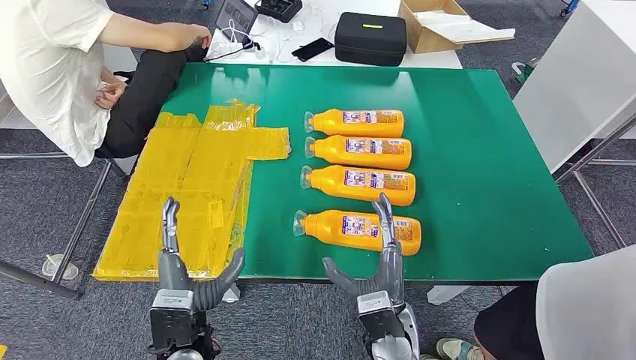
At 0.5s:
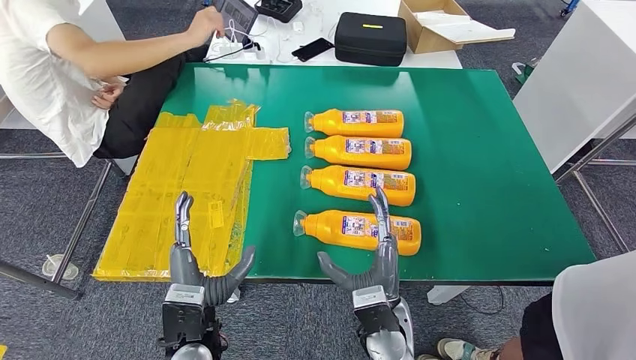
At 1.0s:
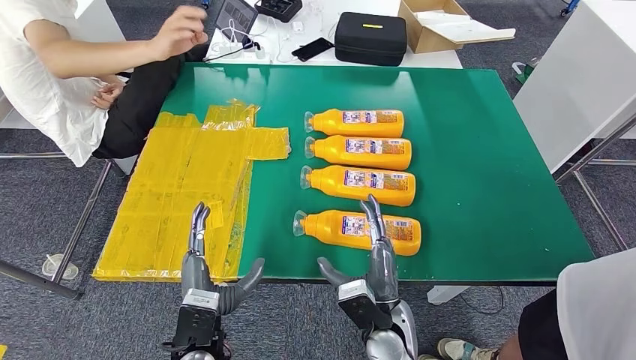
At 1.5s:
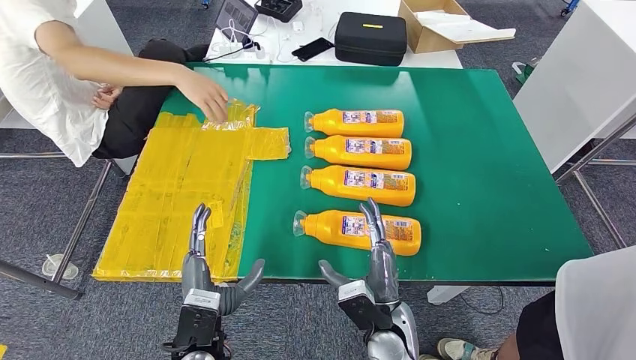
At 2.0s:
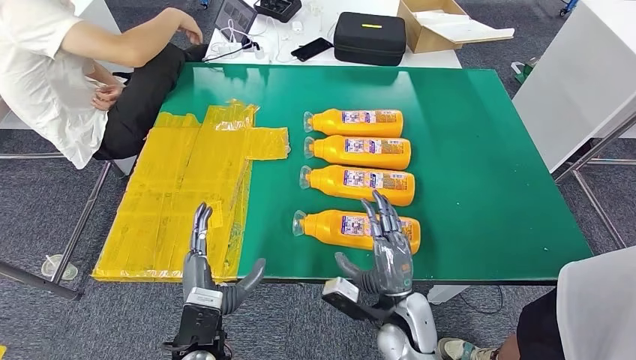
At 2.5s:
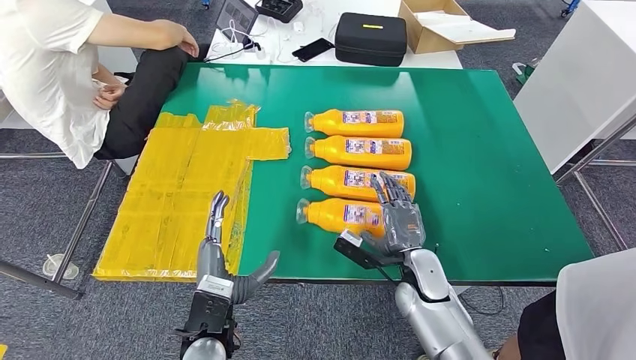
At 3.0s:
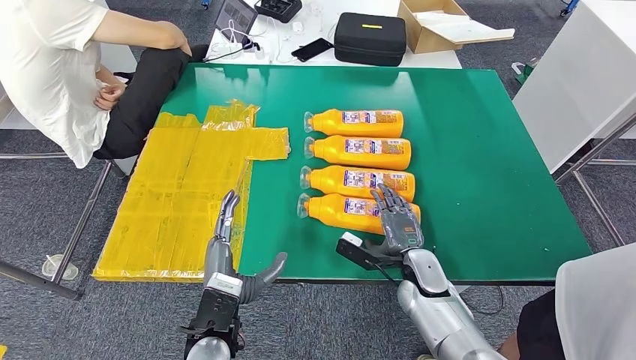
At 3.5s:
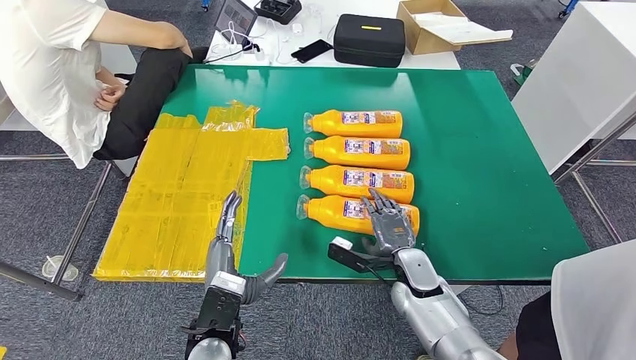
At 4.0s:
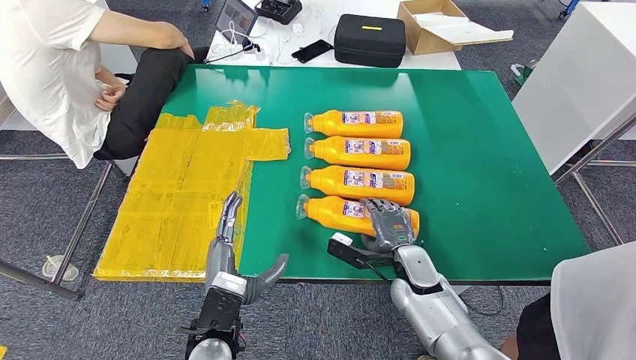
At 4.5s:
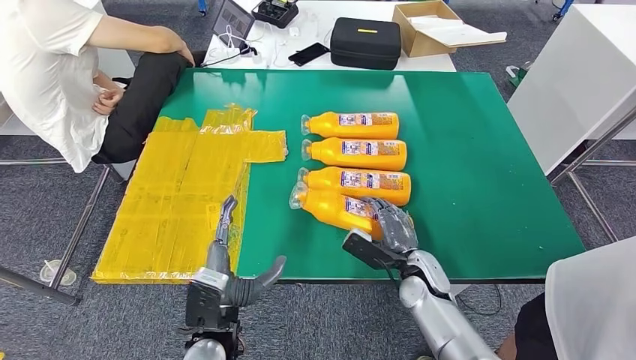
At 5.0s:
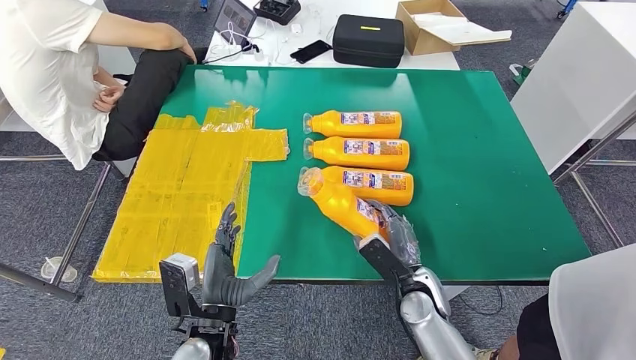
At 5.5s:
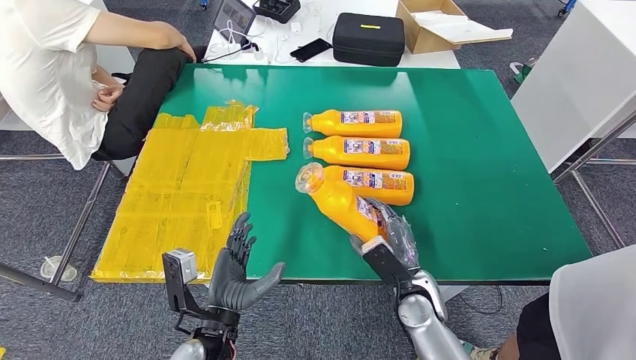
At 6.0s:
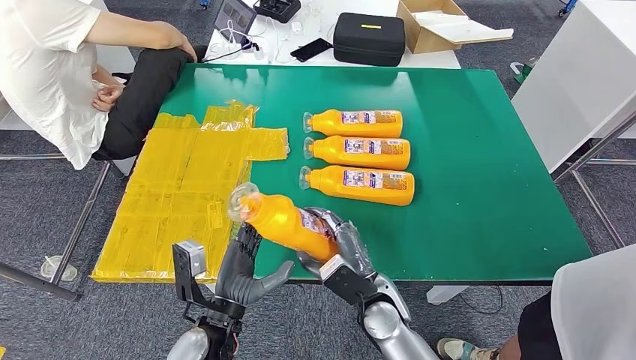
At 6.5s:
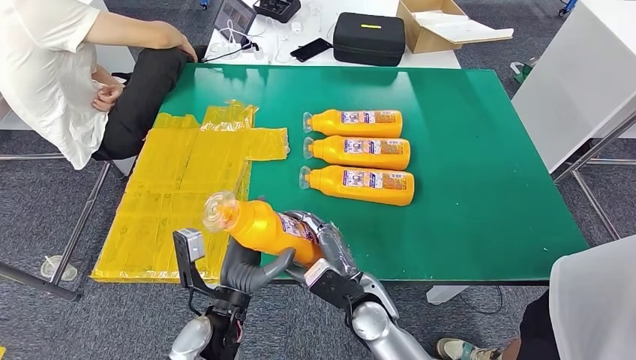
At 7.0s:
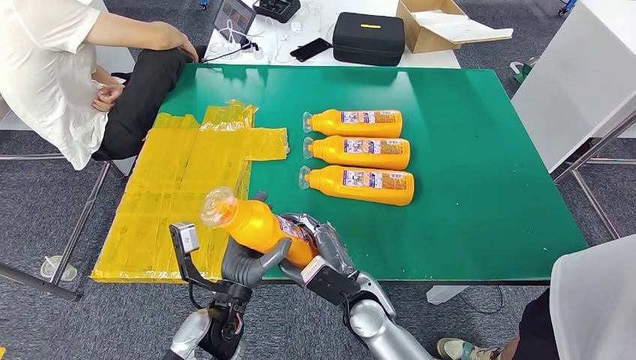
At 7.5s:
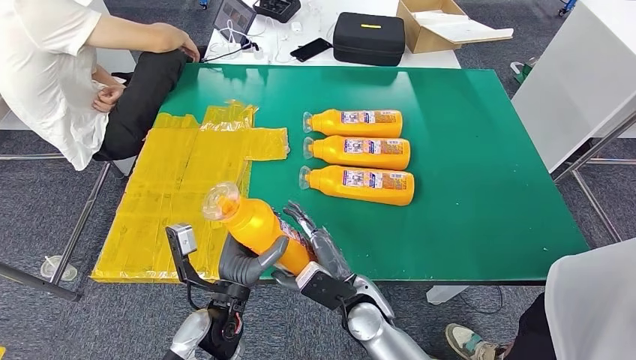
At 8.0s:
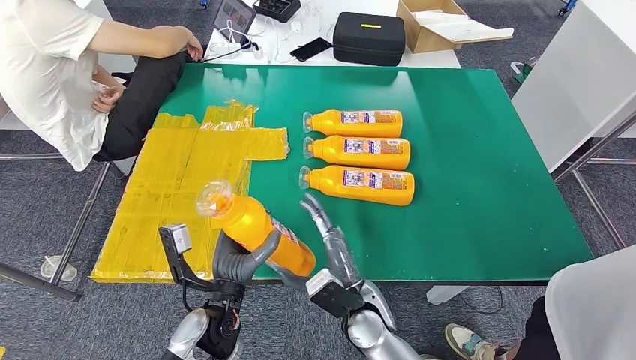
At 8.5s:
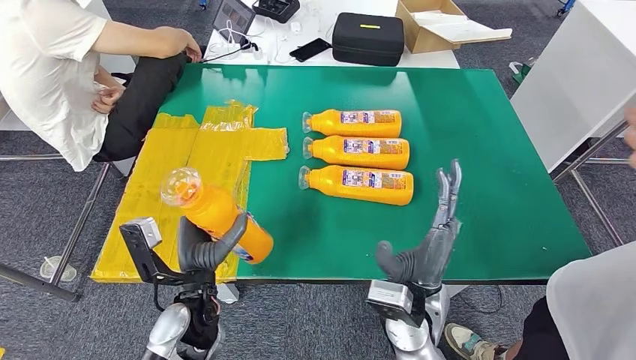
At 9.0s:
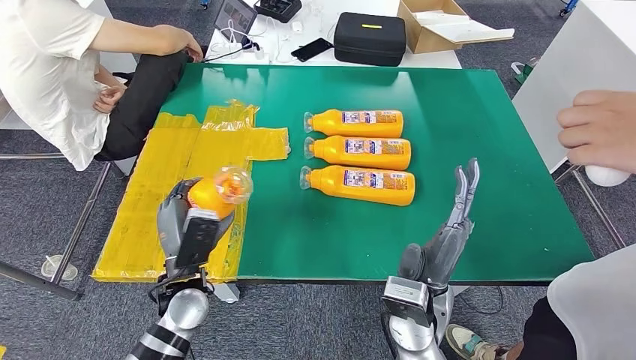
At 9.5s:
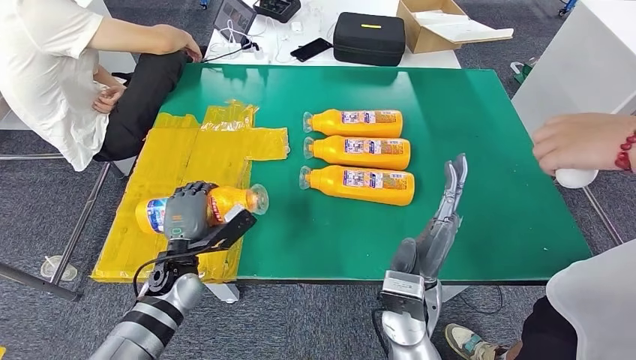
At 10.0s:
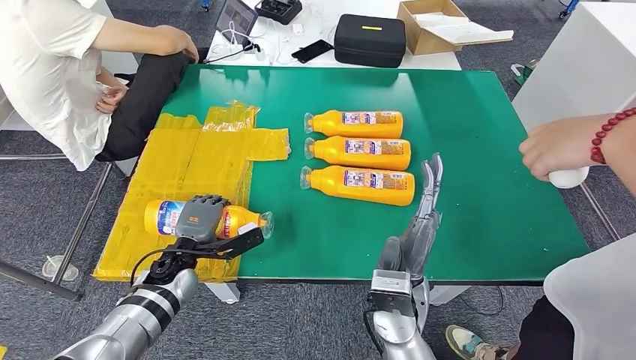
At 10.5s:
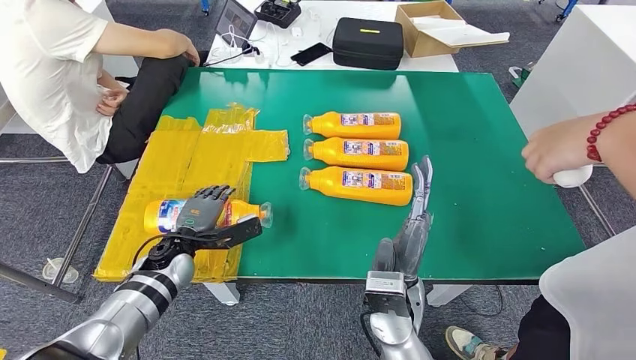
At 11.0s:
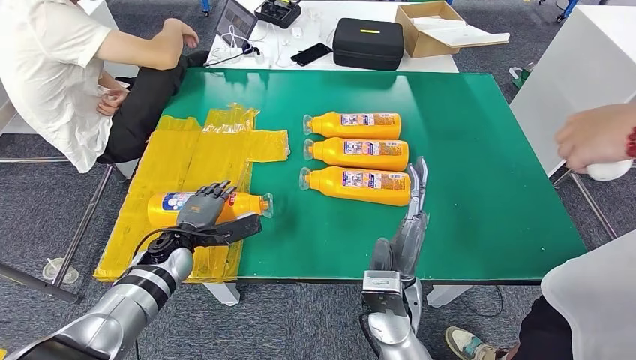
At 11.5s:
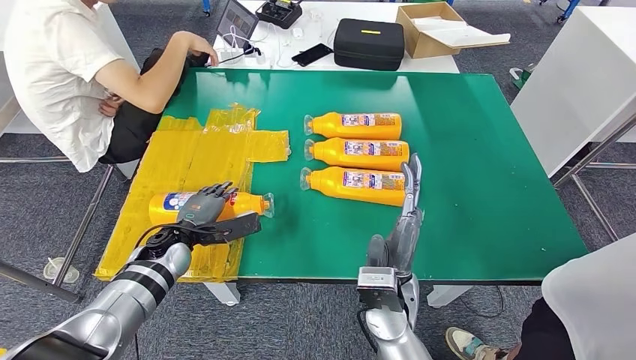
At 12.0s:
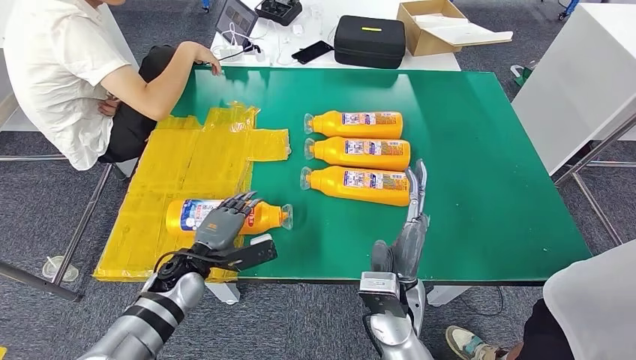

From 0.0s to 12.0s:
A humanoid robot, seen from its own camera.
Step, from 0.0s to 5.5s: Take the bottle from the table.
From 2.0s to 4.0s: The right hand shifts some 10 cm forward.
From 4.0s to 6.0s: The right hand shifts roughly 10 cm to the left and backward.
From 6.0s to 8.0s: The hands stay close to where they were, moving slightly.
From 10.0s to 12.0s: There are only small adjustments of the hands.

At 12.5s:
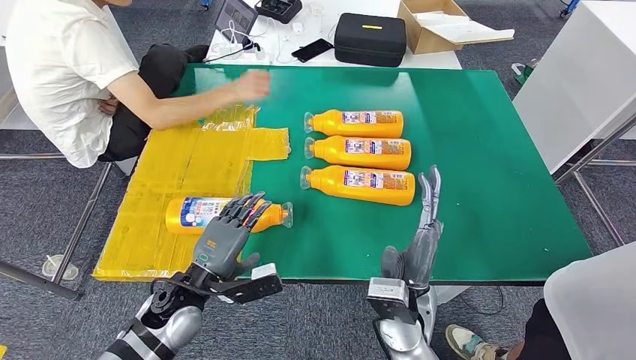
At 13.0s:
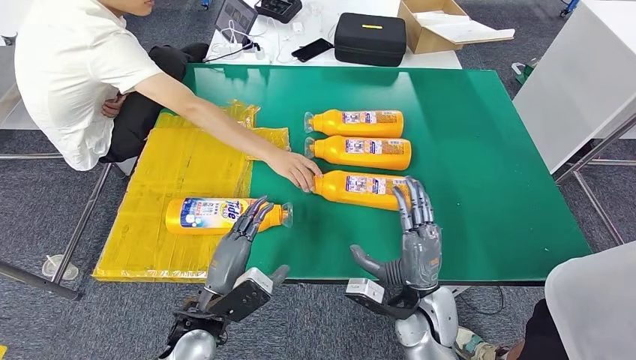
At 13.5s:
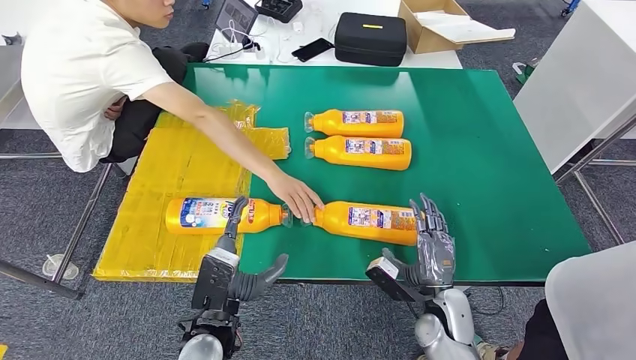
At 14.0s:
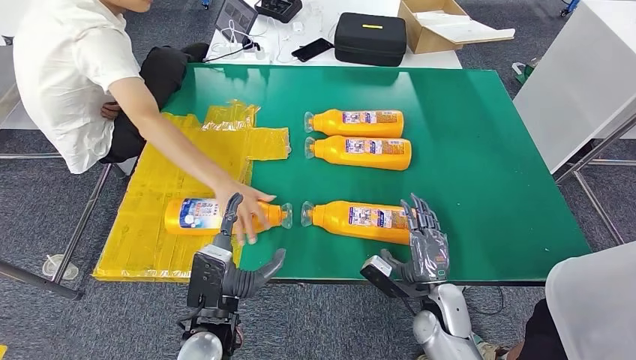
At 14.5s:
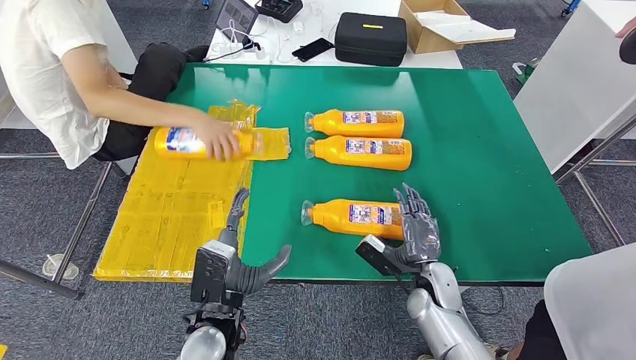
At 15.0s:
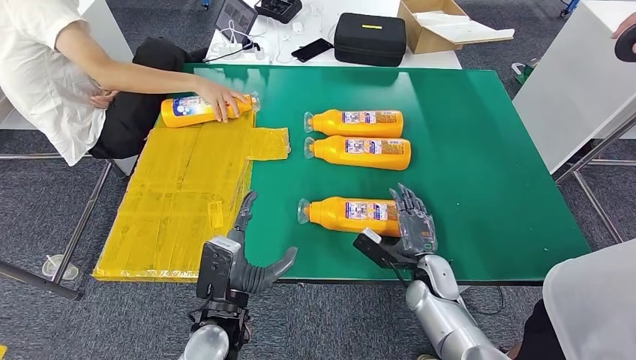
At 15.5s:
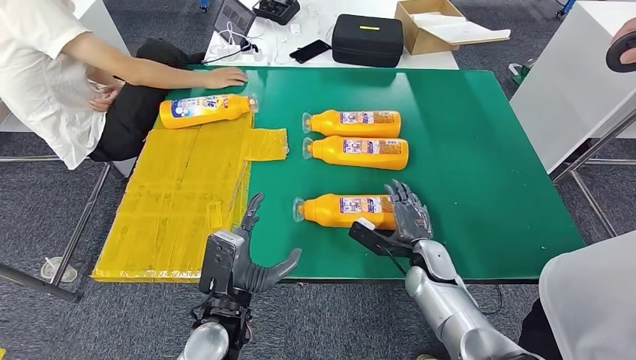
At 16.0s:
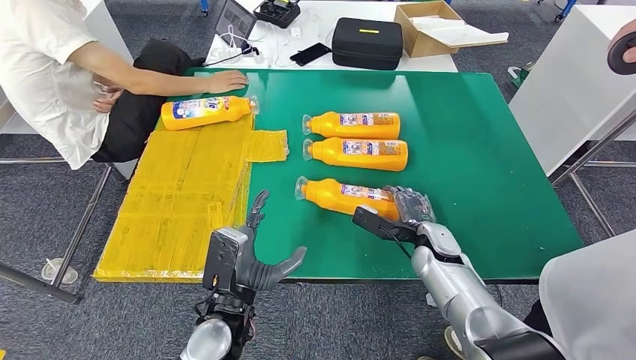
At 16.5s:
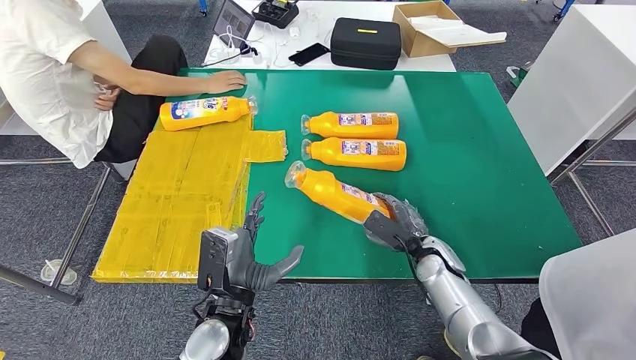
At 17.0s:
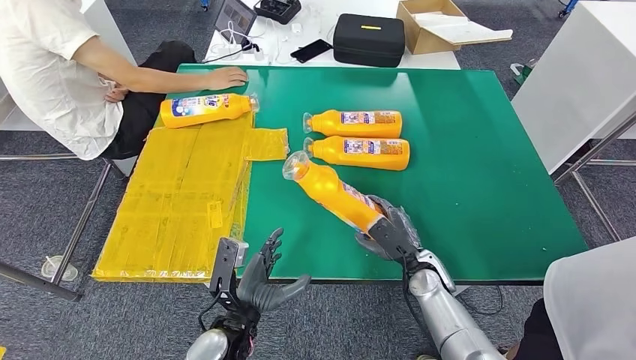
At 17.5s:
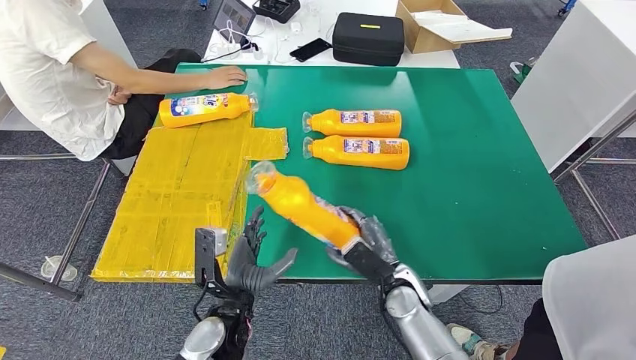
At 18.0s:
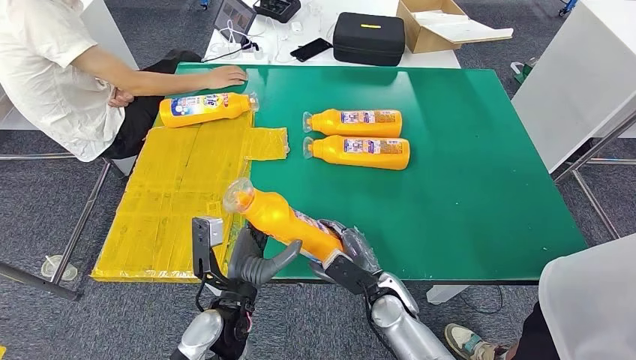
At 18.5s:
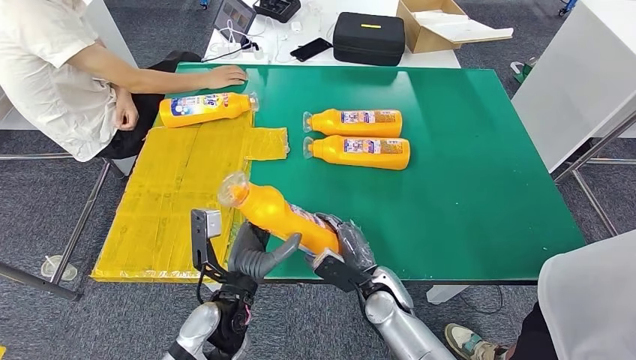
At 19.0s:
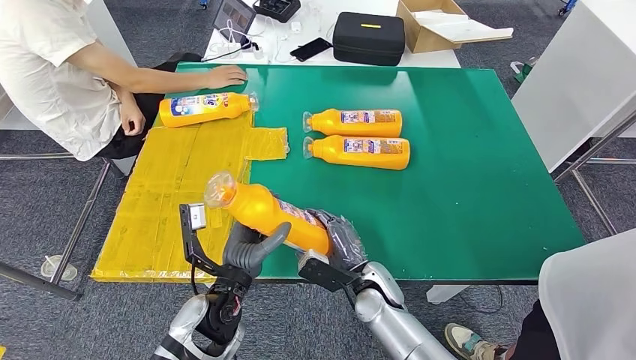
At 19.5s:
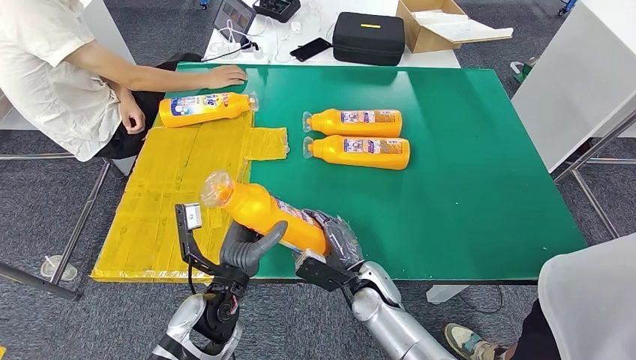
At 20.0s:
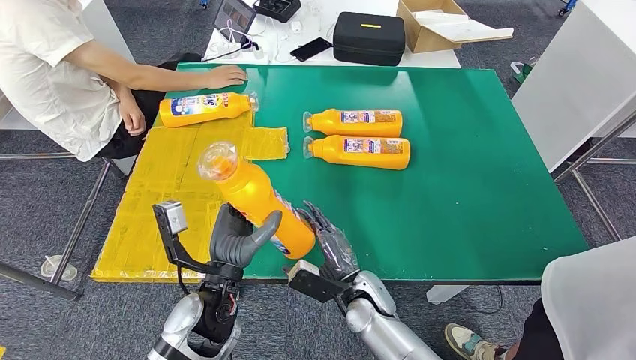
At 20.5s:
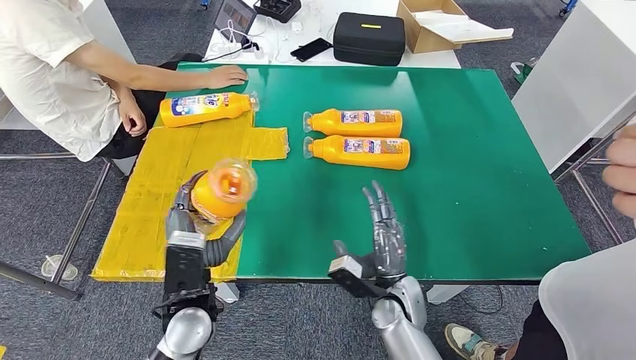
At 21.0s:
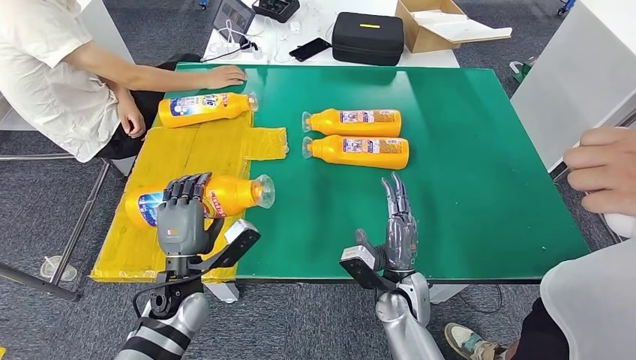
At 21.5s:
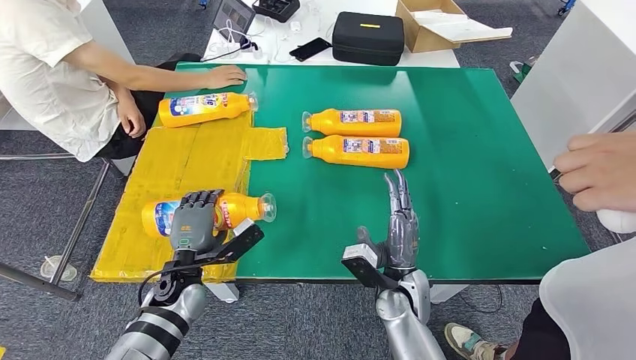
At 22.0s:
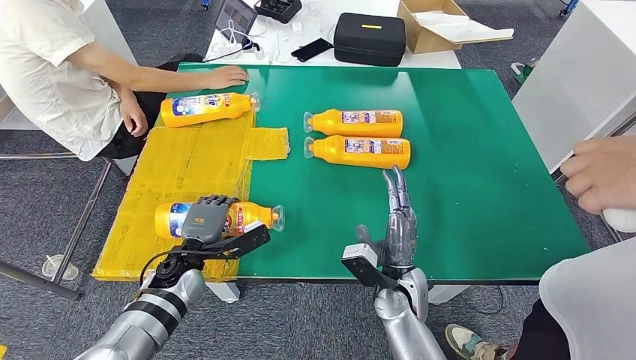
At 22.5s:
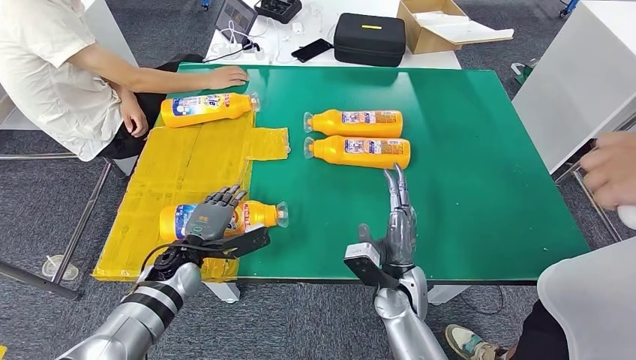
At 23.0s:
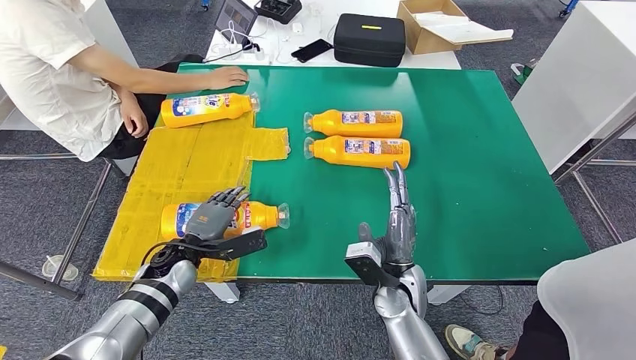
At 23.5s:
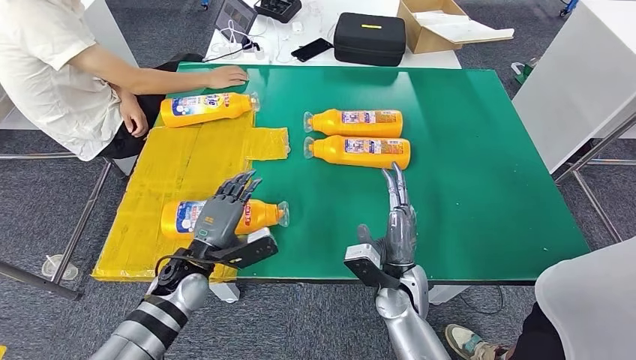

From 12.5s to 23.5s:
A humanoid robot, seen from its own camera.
Step, from 13.5s to 17.0s: Pick up the bottle from the table.
From 18.0s to 20.0s: There are only small adjustments of the hands.
From 20.0s to 21.5s: The right hand goes some 5 cm to the right. The left hand travels to the left, downward and forward by approximately 15 cm.
